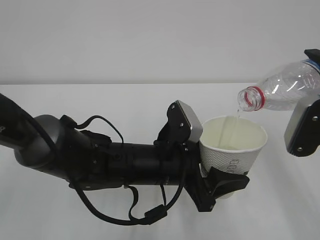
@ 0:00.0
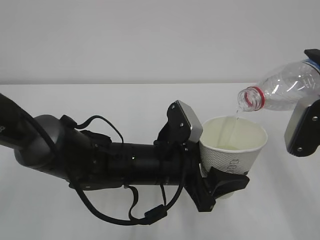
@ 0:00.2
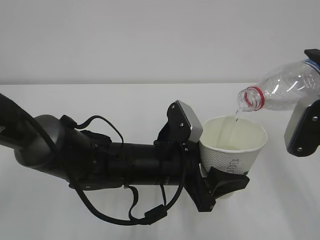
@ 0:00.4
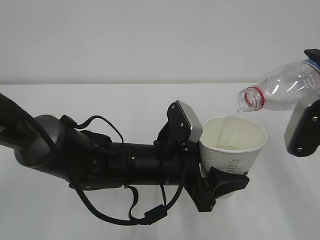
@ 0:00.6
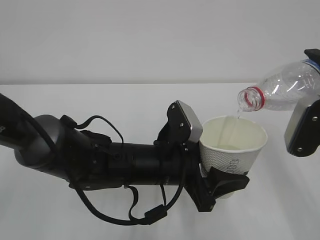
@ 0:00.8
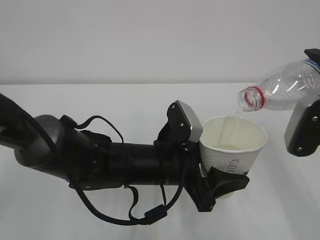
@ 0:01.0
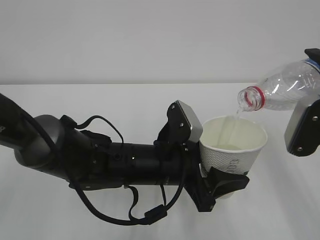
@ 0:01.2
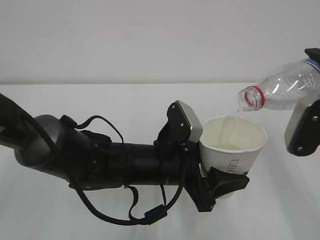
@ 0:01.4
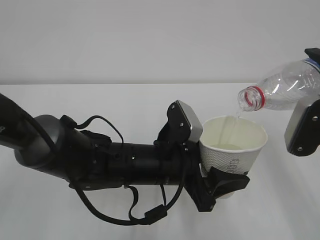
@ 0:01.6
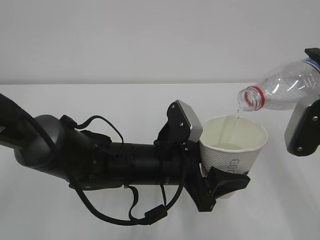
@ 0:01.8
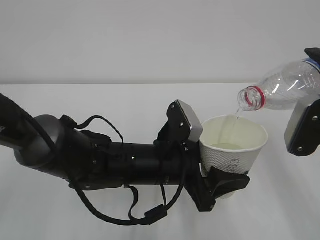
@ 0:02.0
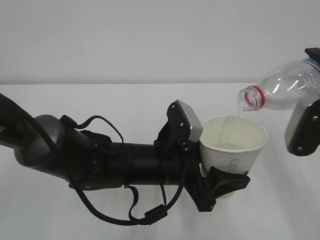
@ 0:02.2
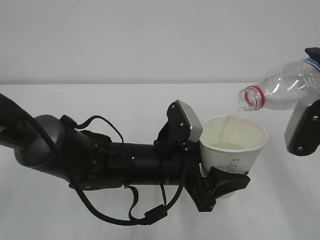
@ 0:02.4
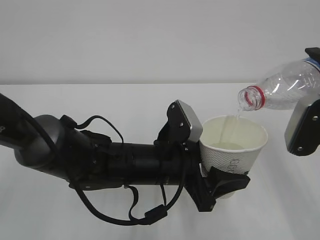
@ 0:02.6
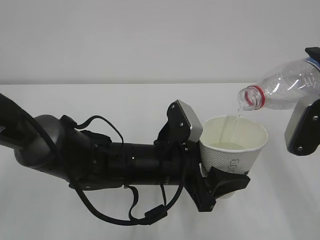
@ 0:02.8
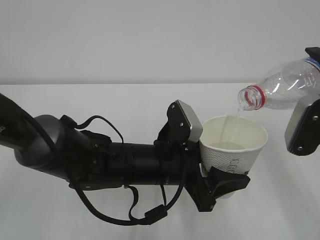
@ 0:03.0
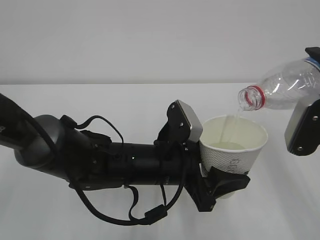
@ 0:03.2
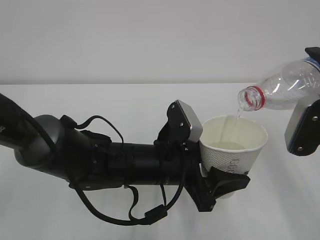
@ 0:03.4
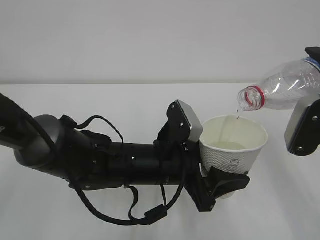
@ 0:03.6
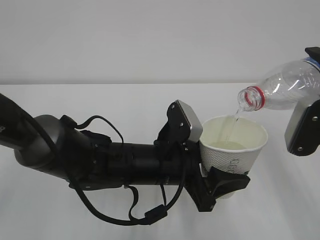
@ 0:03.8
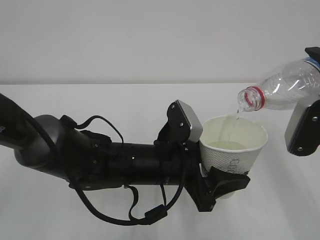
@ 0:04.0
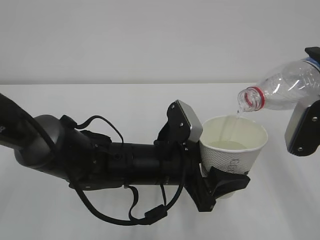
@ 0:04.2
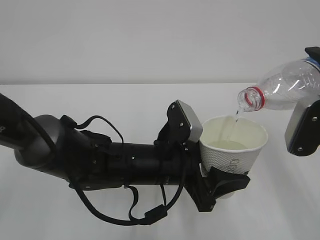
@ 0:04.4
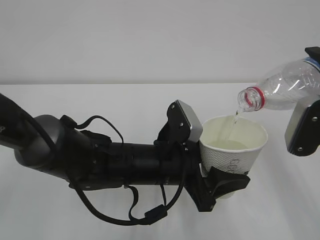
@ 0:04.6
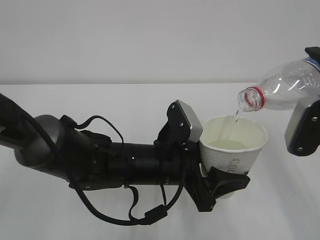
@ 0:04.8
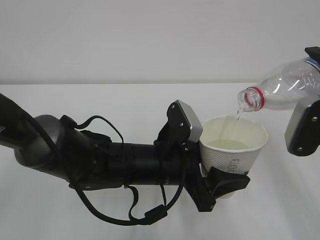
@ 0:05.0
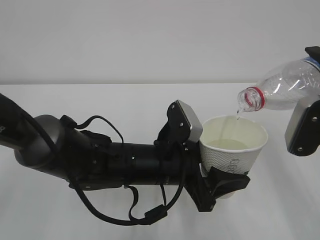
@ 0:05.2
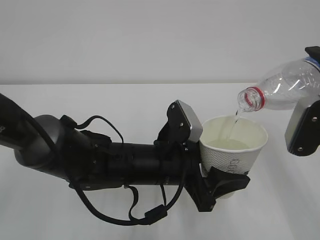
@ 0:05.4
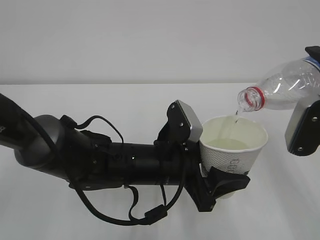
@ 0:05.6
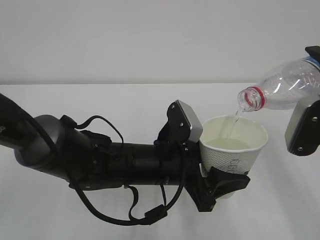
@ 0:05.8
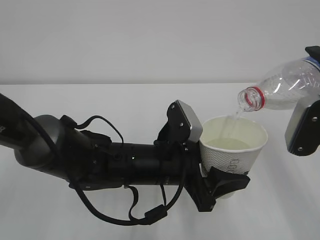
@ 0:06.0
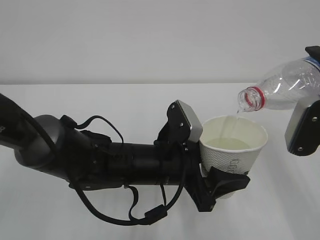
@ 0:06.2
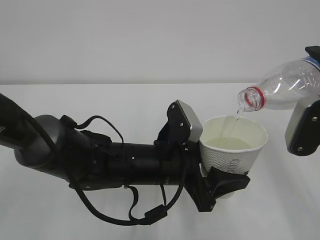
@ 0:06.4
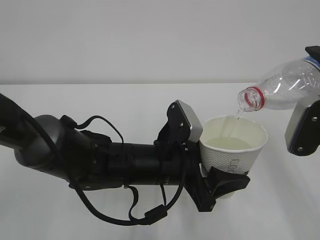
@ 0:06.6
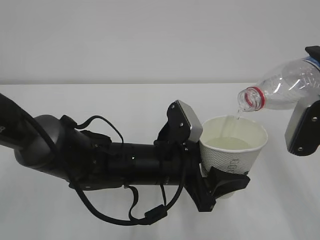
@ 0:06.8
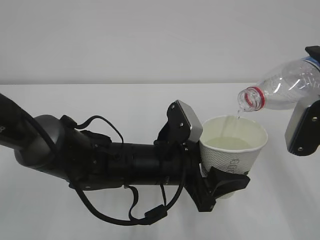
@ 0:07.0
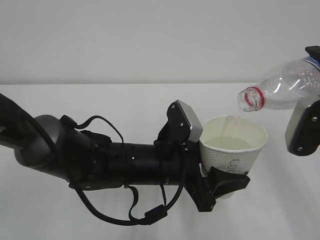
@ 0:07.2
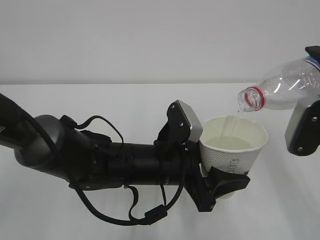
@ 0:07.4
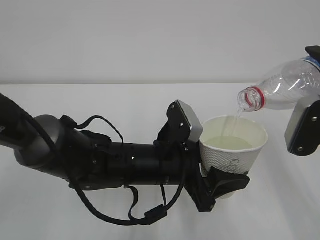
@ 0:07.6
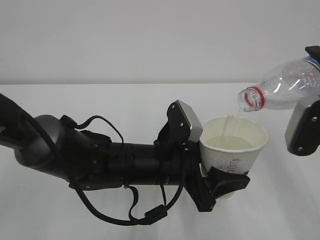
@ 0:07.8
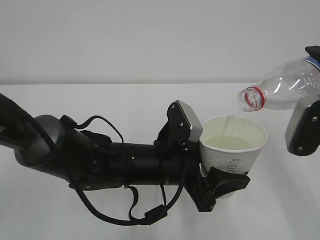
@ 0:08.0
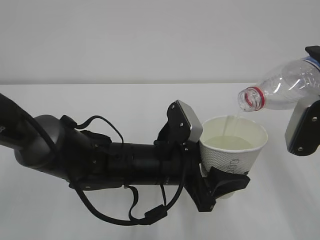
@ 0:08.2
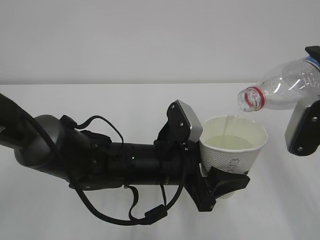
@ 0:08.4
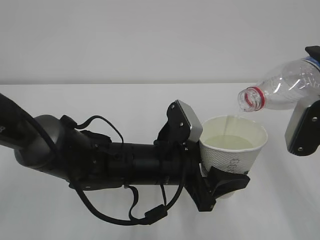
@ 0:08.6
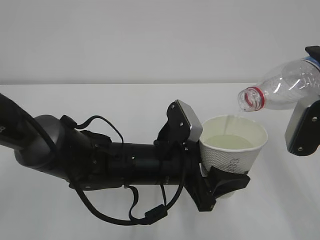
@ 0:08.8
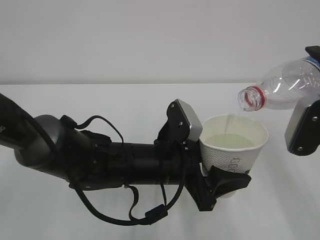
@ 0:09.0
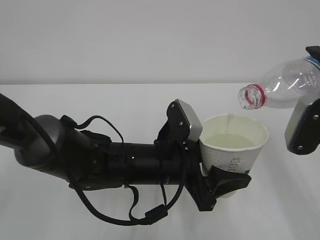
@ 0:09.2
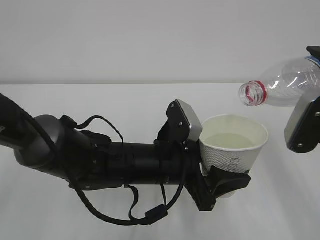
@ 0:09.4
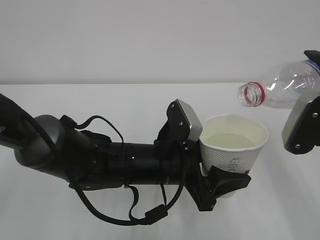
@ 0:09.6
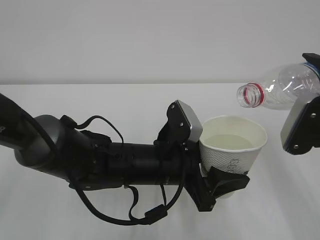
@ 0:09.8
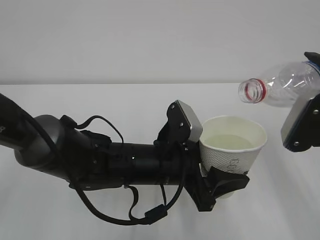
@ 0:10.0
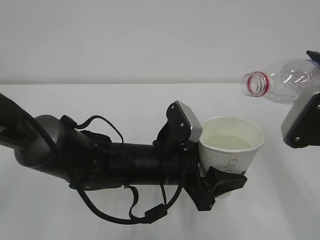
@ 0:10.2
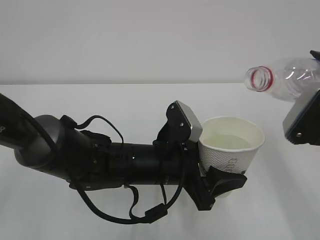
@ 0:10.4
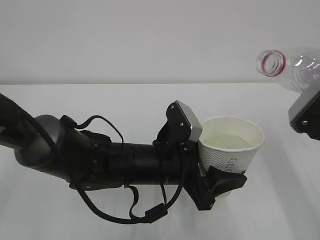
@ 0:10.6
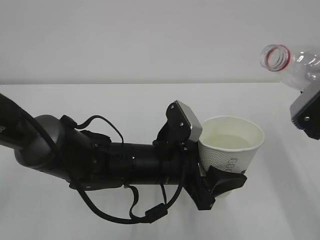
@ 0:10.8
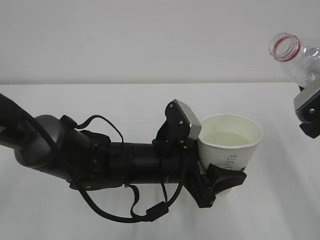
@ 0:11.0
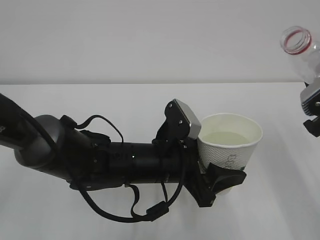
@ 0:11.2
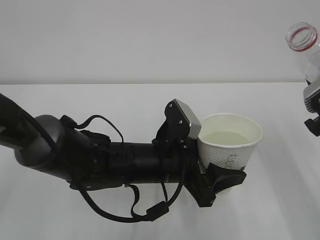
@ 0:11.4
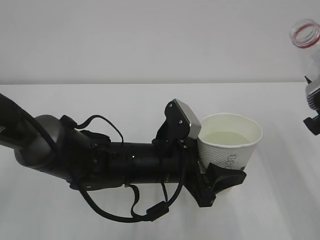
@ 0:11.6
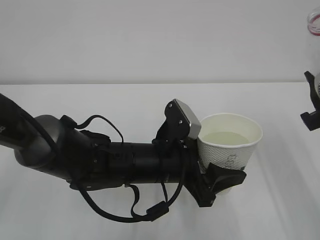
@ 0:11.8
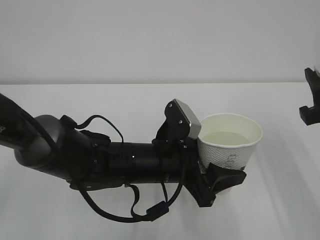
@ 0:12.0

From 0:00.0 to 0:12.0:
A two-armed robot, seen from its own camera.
From 0:00.0 to 0:09.0: Both grippers stay put.
From 0:09.0 to 0:10.4: The grippers make only small movements.

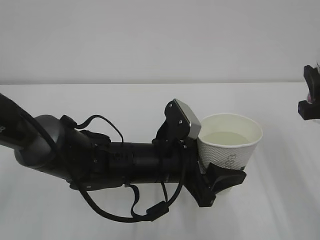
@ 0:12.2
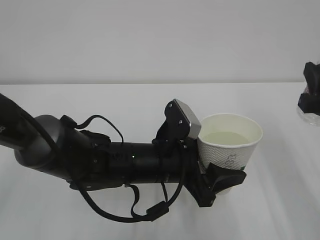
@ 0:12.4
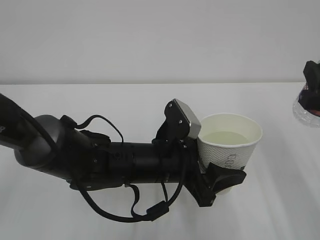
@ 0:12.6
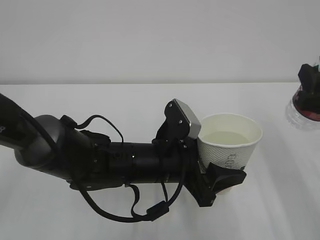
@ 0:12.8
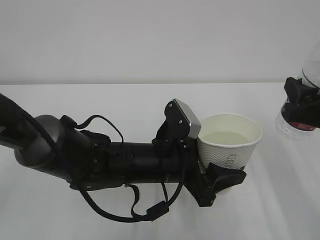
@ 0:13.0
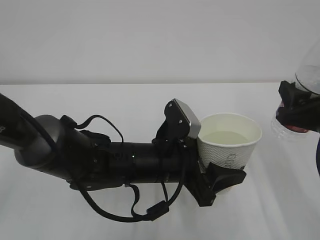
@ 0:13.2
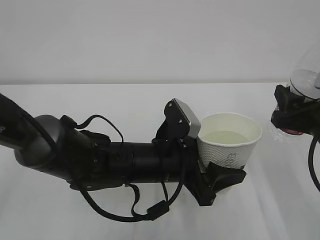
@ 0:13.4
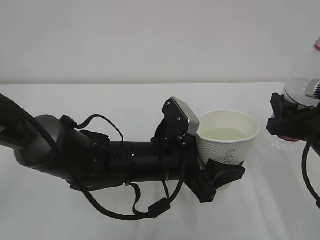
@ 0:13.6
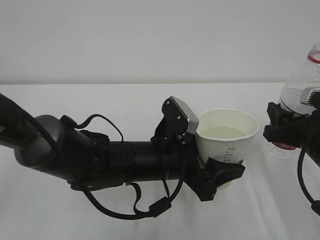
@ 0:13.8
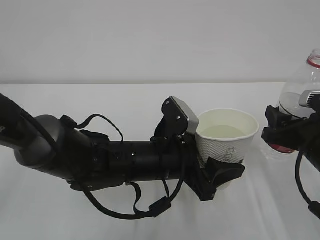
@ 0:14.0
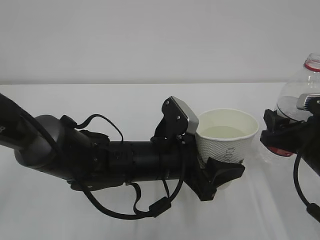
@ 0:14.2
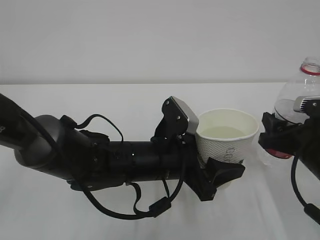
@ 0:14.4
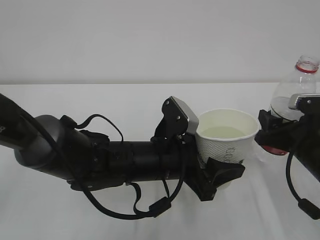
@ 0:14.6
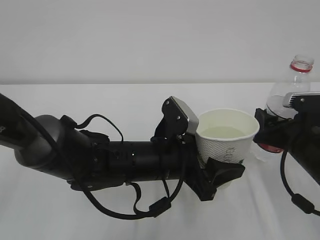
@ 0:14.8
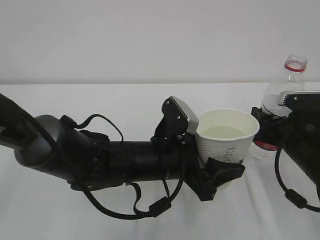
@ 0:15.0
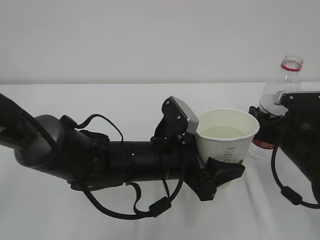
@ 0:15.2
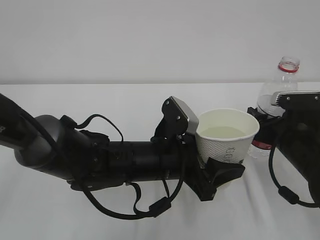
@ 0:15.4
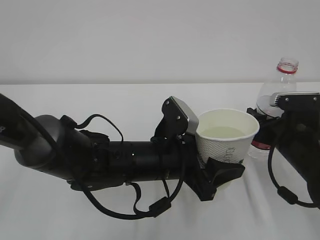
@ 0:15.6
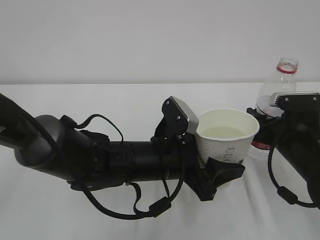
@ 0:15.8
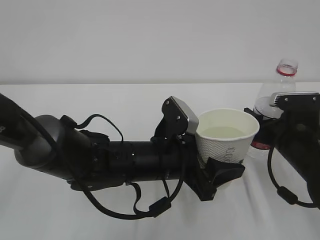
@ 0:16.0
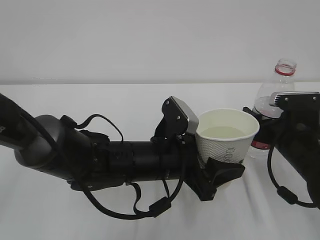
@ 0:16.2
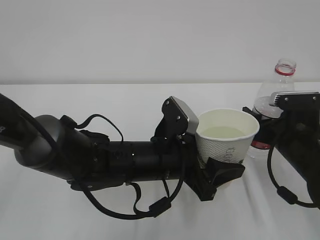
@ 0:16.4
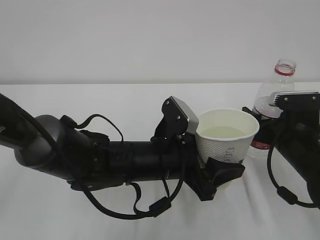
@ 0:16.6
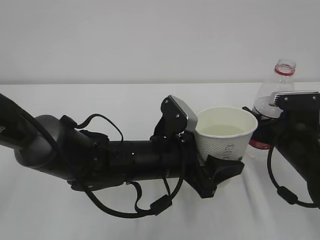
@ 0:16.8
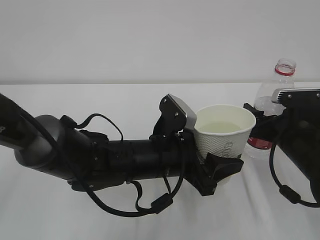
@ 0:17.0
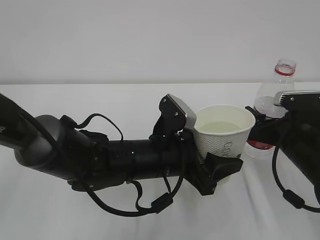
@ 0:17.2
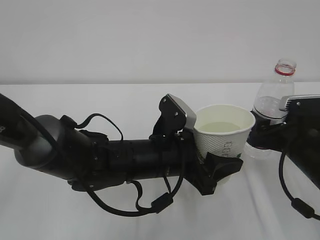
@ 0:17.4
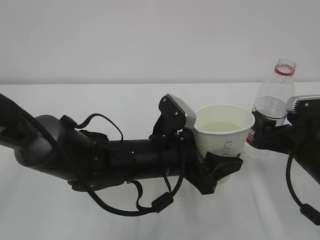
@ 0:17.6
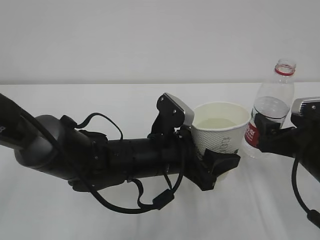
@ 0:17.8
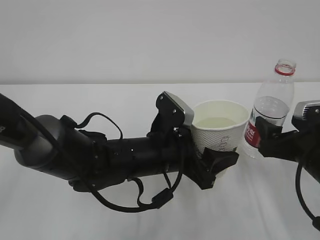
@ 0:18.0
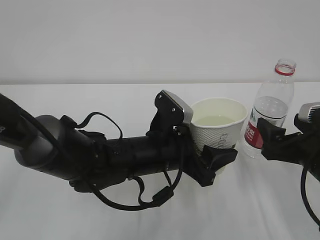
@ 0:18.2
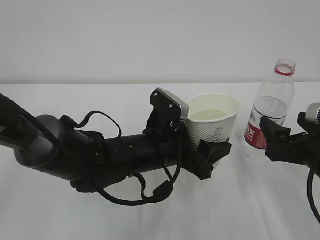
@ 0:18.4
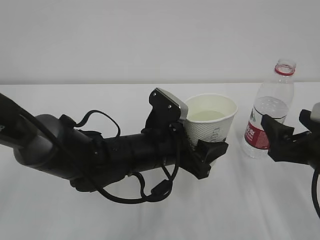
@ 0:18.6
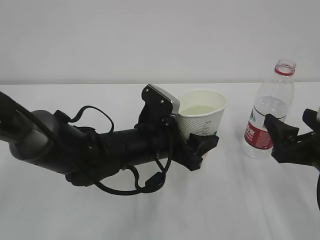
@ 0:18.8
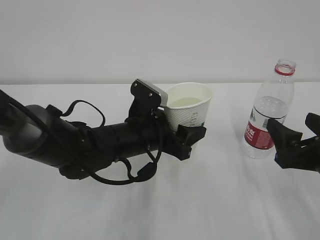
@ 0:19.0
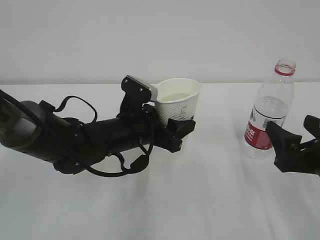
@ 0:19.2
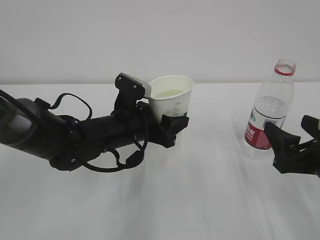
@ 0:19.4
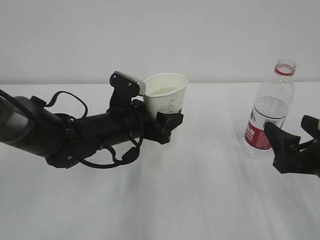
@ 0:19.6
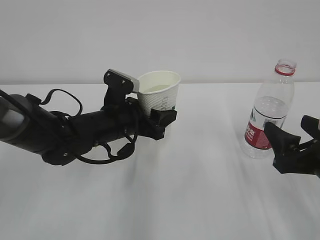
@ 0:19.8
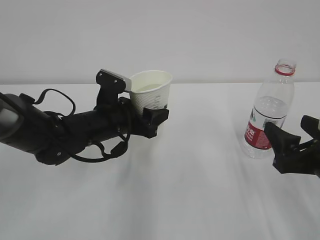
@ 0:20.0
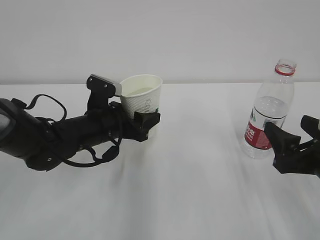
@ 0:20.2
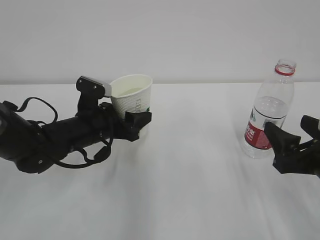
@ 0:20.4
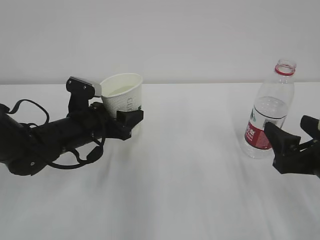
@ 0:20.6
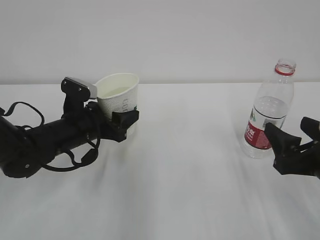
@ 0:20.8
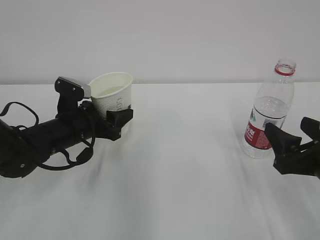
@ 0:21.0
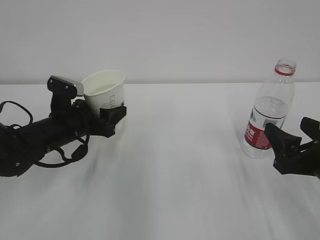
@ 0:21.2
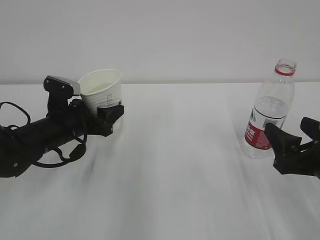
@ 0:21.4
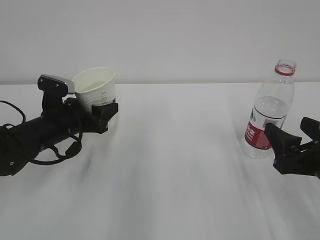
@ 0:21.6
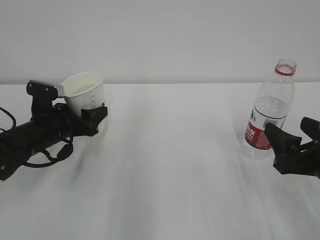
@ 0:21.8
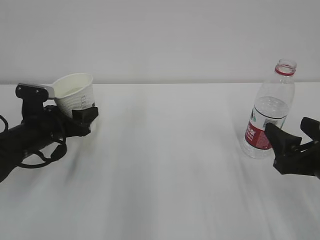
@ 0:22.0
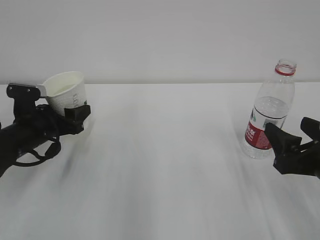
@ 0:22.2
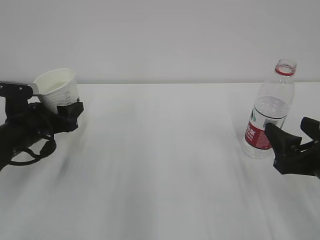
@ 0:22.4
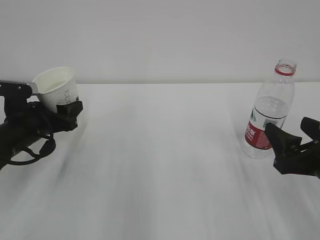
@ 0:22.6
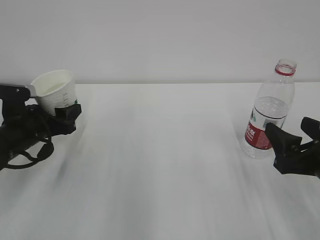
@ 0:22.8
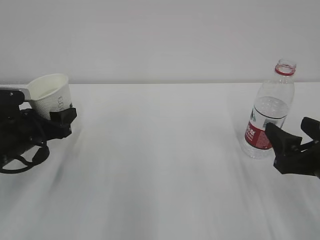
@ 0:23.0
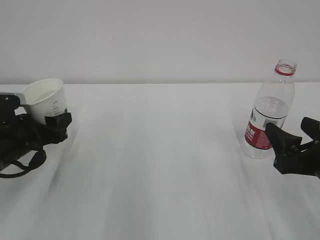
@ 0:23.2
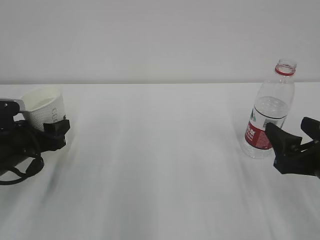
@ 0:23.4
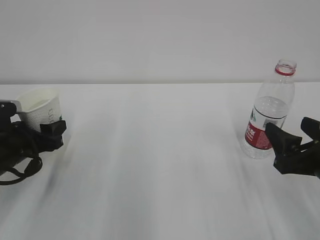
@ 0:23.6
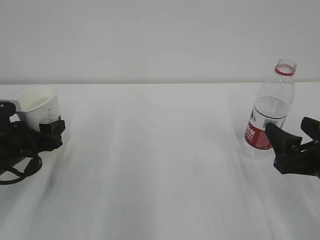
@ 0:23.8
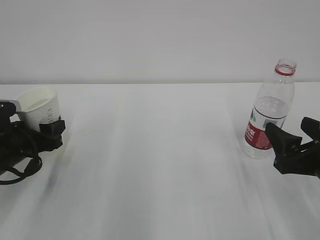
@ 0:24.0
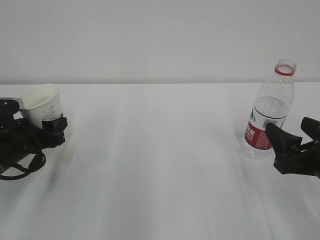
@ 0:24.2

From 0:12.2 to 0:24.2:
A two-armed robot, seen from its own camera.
From 0:12.2 to 0:13.8: The right gripper travels downward by about 10 cm.
From 0:13.8 to 0:15.2: The right gripper ends up some 5 cm from where it was.
From 0:15.2 to 0:16.6: The right gripper opens its fingers.
From 0:16.6 to 0:18.2: The right gripper is displaced backward by about 5 cm.
From 0:18.2 to 0:19.8: The left gripper moves to the left and forward, about 10 cm.
From 0:19.8 to 0:21.2: The left gripper goes some 10 cm to the left.
From 0:21.2 to 0:22.6: The left gripper goes approximately 5 cm to the left.
From 0:22.6 to 0:24.2: The grippers stay close to where they were, moving slightly.
